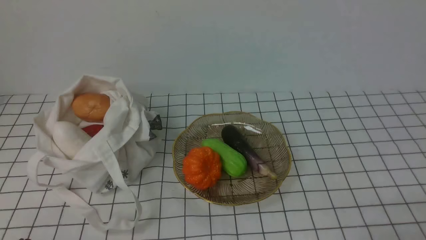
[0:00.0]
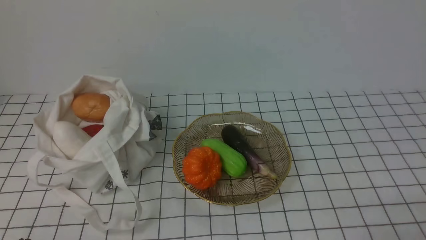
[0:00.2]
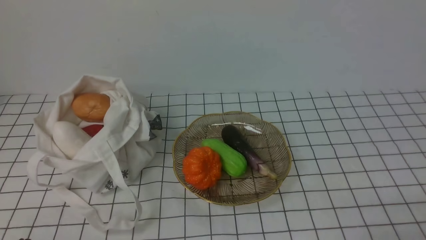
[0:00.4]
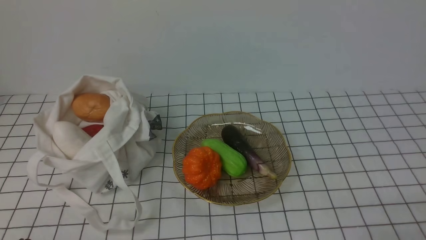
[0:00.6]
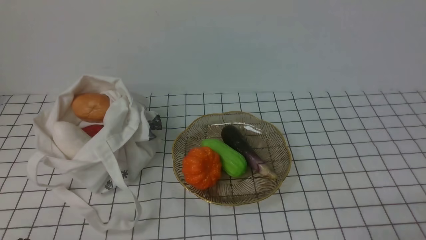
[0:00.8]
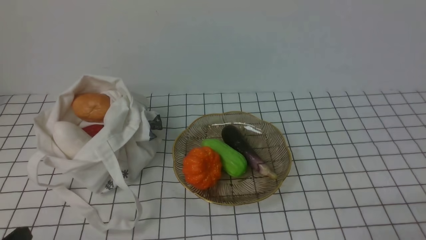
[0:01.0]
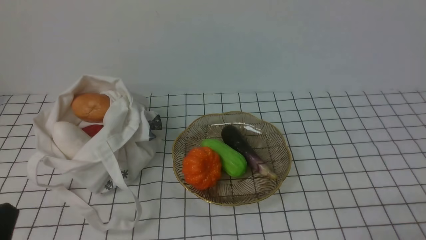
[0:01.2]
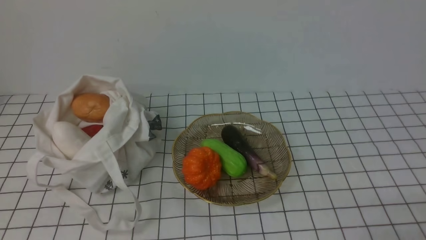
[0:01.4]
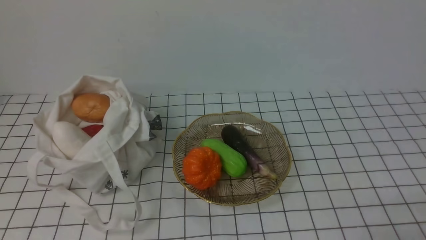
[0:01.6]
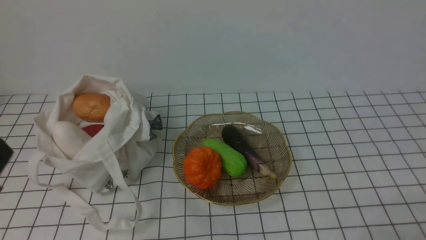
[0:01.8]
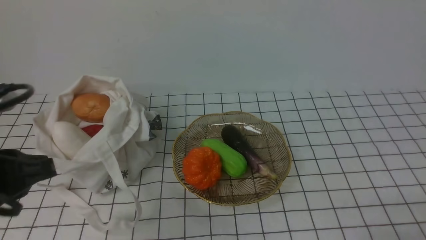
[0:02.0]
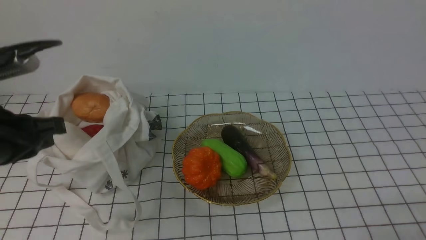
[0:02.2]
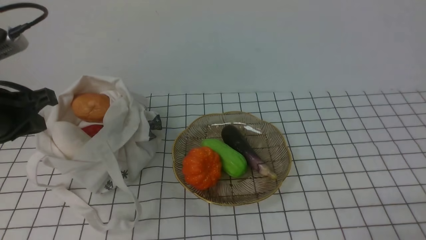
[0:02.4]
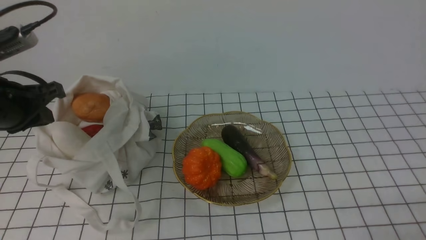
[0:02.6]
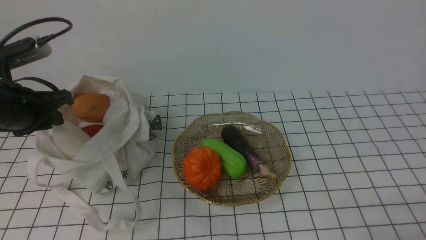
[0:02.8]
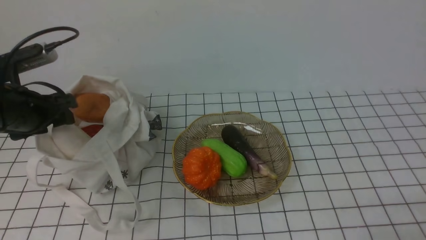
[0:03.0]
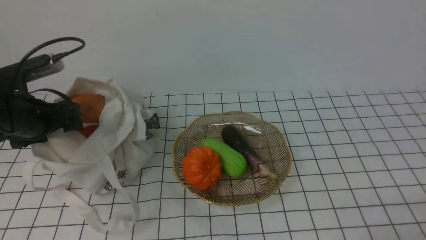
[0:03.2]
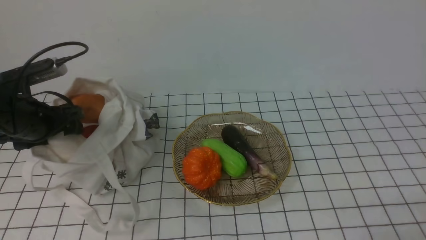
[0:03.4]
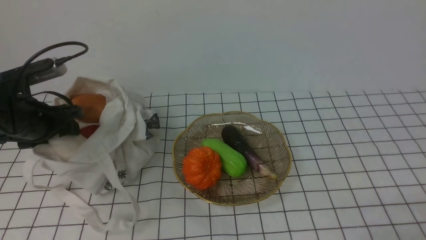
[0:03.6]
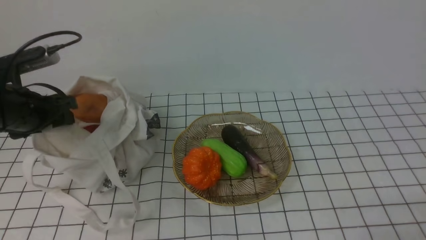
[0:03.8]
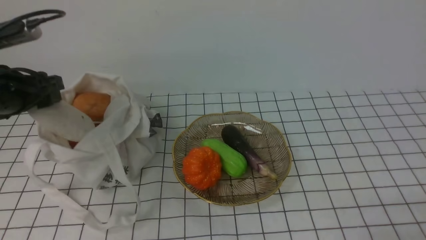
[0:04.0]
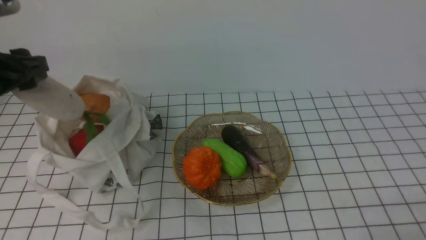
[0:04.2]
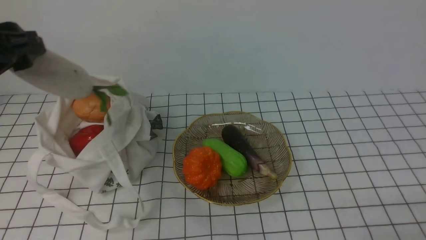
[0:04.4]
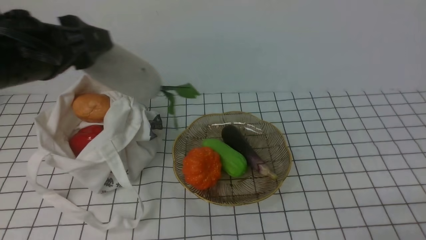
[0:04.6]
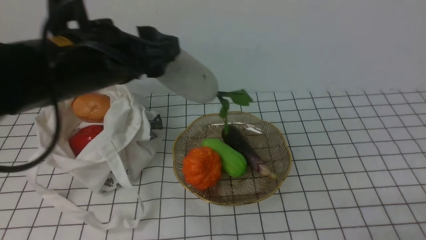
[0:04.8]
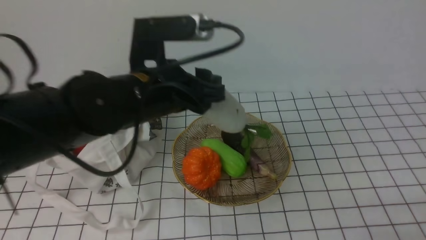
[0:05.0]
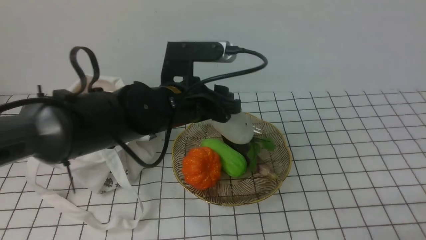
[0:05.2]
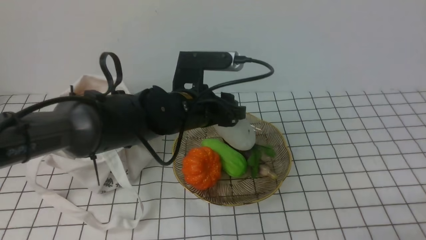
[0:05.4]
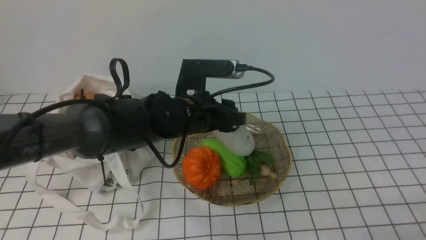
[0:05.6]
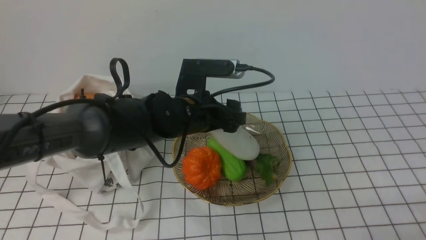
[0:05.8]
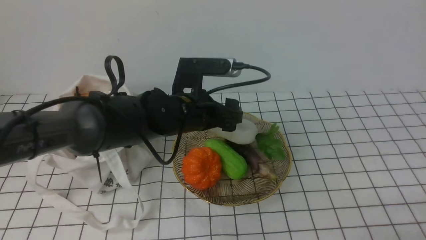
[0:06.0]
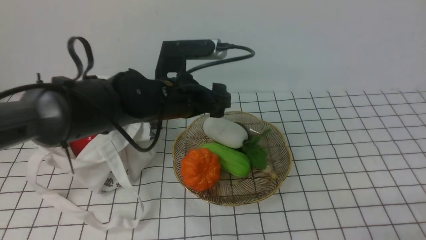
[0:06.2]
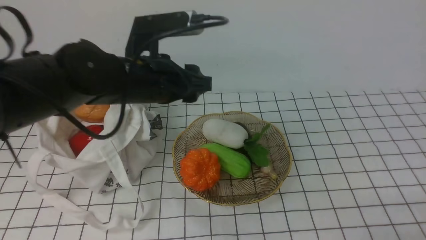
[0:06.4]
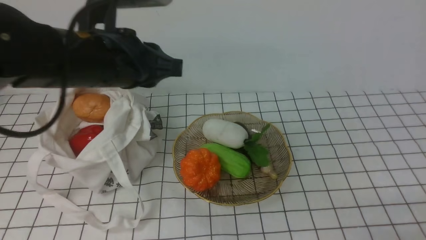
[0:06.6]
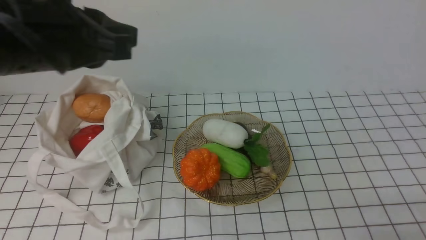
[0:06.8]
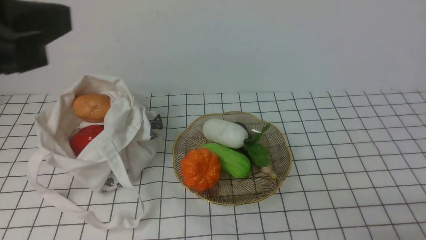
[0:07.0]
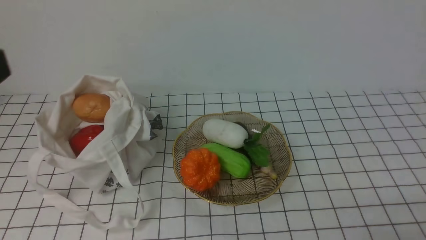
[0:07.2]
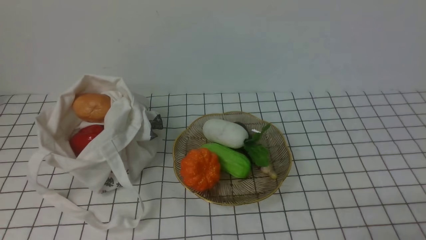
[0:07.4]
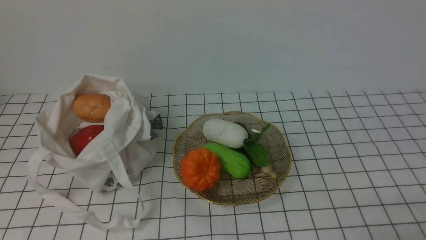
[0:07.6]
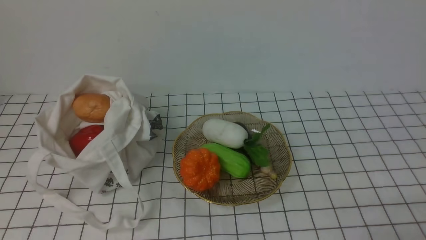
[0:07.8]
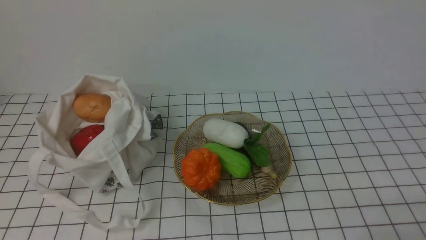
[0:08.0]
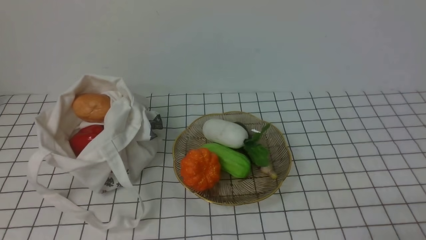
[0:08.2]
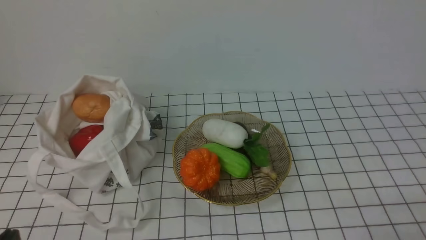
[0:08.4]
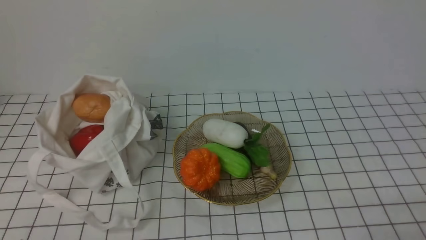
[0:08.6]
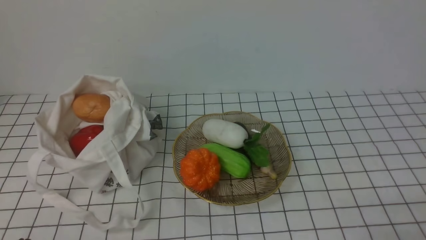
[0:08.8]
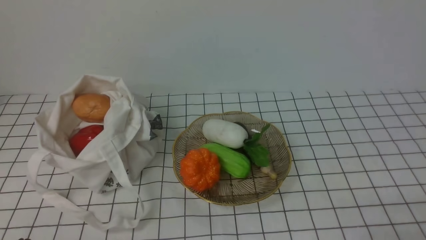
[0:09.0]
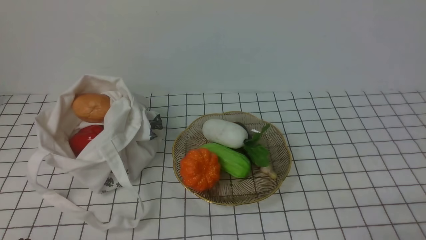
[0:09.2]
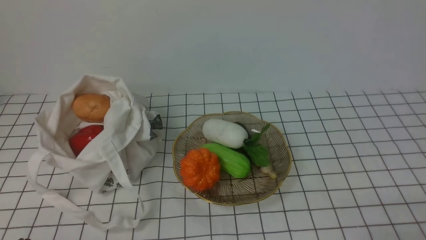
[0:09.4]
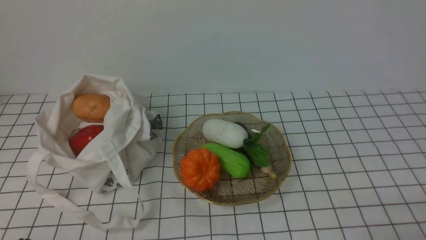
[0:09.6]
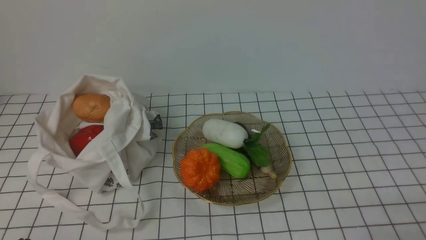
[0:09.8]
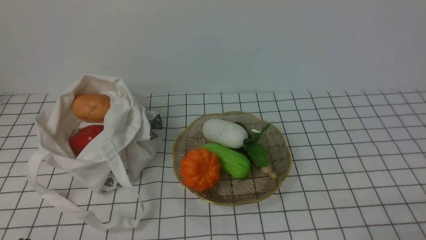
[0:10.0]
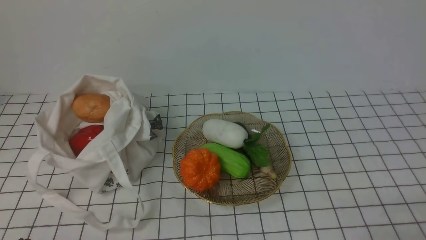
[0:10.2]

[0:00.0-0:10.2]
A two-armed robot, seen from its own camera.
Task of the whole recording: take vegetables from bag on white checkered tablecloth place on plate.
Step, 0:00.0 to 0:03.4: Grasp the radish with left gripper.
Step, 0:03.6 to 0:06.0: Place the radish on the plate with left gripper.
0:01.4 to 0:03.0: The left gripper travels forward by some 25 cm, and opens.
0:03.0 to 0:04.4: The left gripper shifts about 15 cm upward and backward.
0:04.4 to 0:05.8: The left gripper is displaced to the right, downward and forward by about 25 cm.
0:05.8 to 0:07.2: The left gripper shifts roughly 40 cm backward, upward and to the left, and closes.
0:08.8 to 0:10.2: Both grippers stay about where they are.
